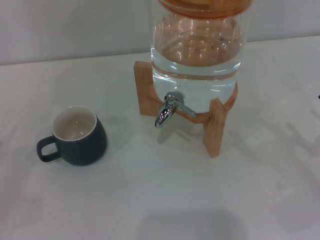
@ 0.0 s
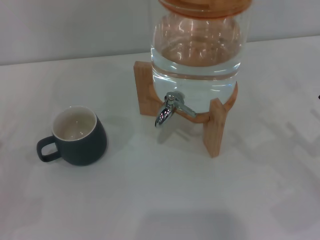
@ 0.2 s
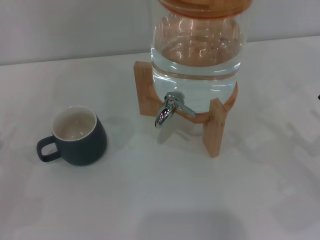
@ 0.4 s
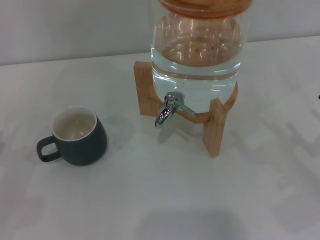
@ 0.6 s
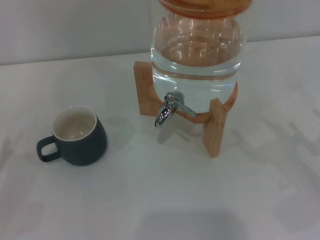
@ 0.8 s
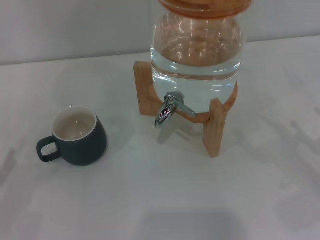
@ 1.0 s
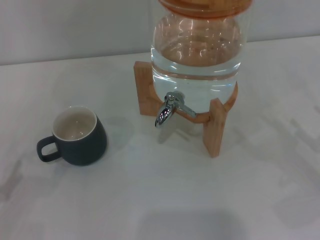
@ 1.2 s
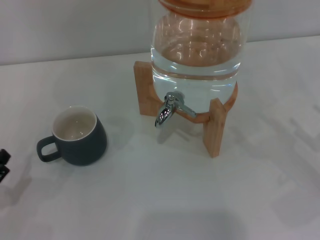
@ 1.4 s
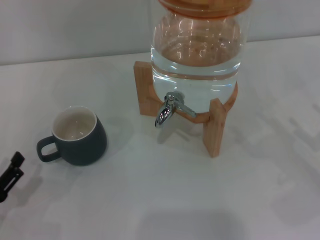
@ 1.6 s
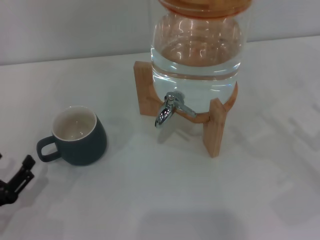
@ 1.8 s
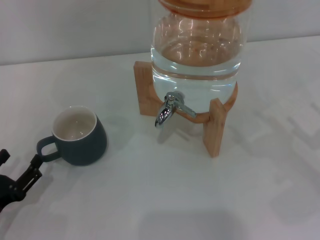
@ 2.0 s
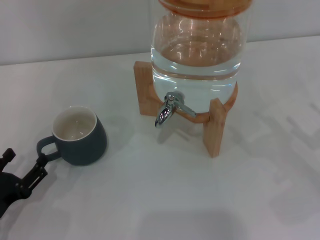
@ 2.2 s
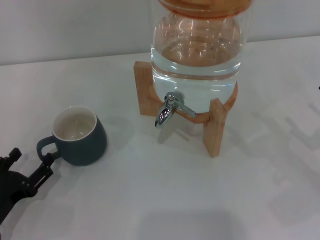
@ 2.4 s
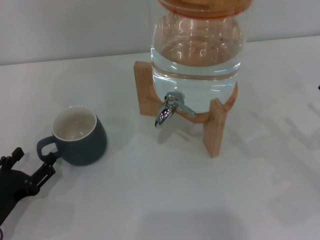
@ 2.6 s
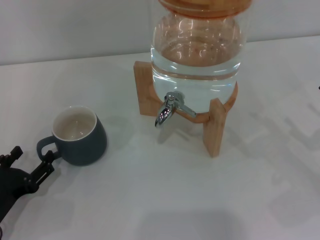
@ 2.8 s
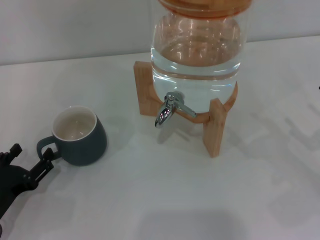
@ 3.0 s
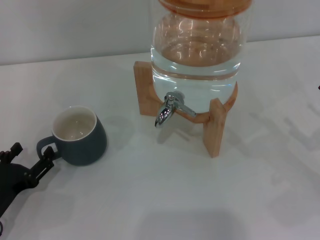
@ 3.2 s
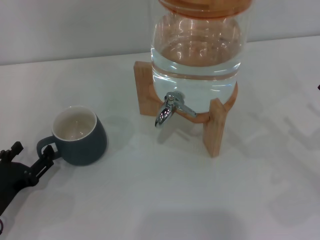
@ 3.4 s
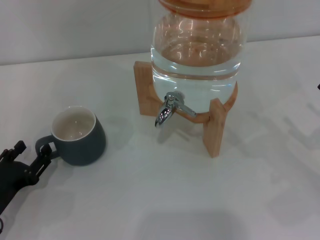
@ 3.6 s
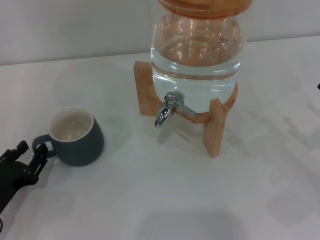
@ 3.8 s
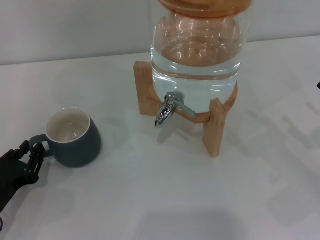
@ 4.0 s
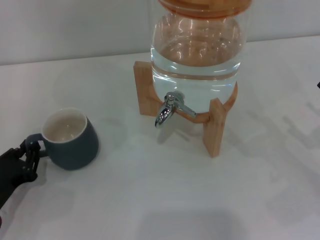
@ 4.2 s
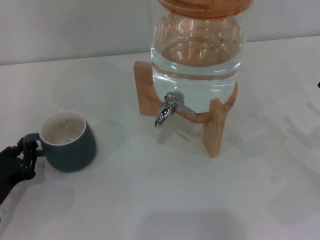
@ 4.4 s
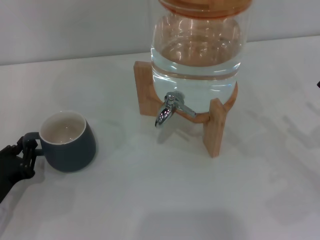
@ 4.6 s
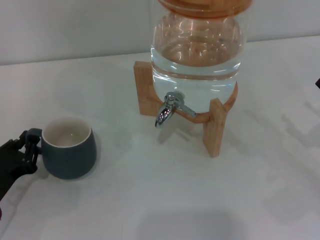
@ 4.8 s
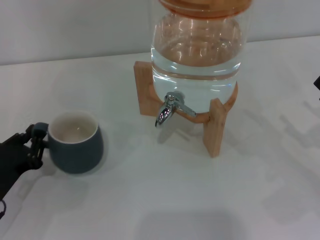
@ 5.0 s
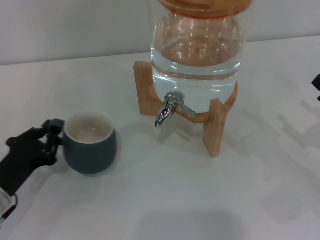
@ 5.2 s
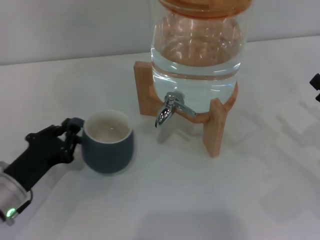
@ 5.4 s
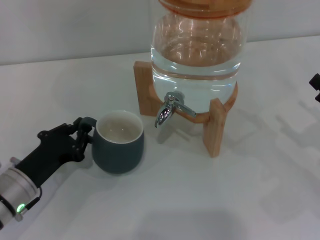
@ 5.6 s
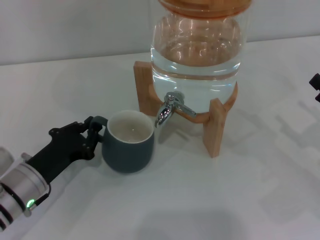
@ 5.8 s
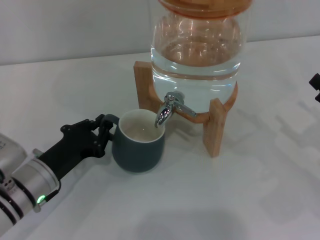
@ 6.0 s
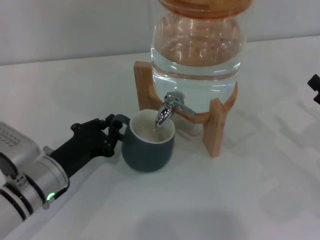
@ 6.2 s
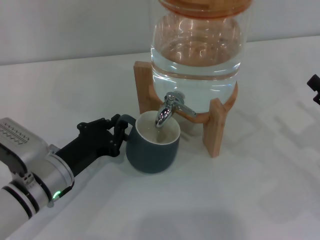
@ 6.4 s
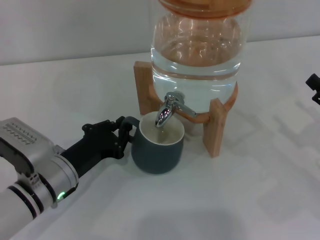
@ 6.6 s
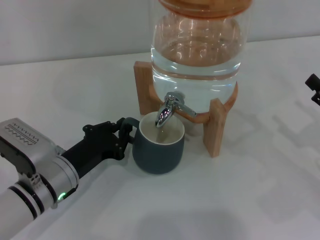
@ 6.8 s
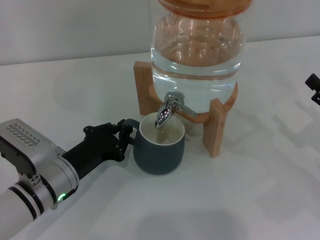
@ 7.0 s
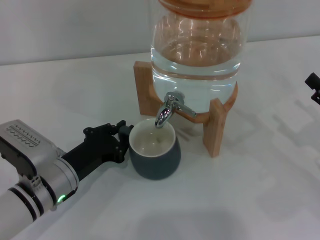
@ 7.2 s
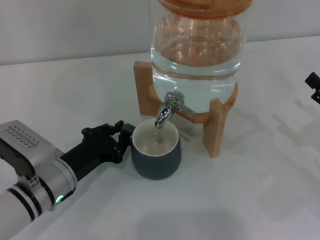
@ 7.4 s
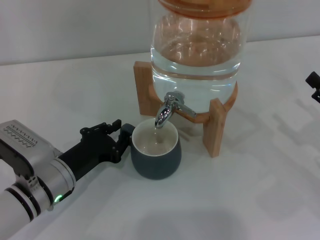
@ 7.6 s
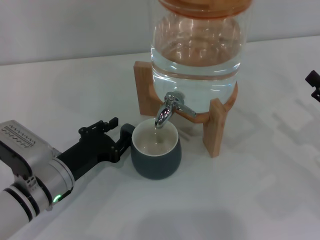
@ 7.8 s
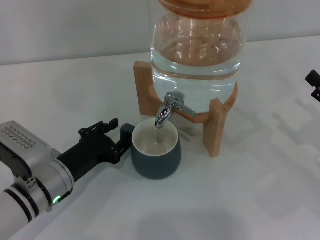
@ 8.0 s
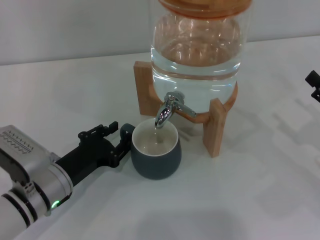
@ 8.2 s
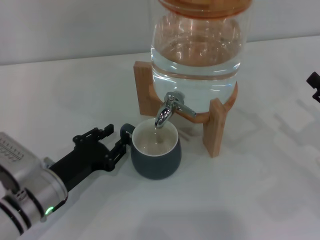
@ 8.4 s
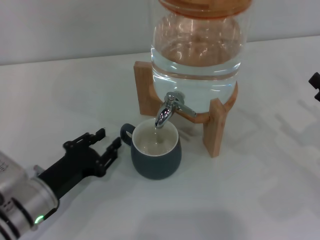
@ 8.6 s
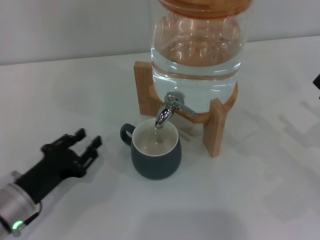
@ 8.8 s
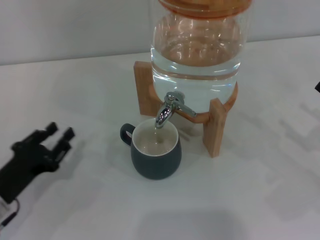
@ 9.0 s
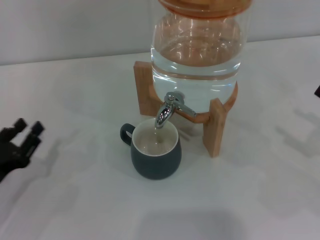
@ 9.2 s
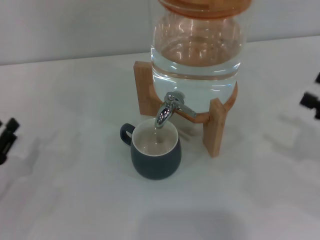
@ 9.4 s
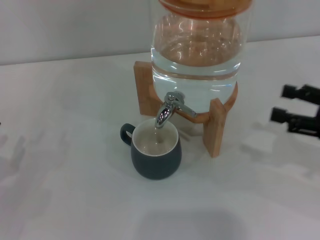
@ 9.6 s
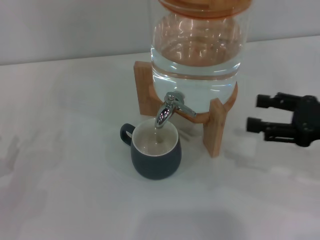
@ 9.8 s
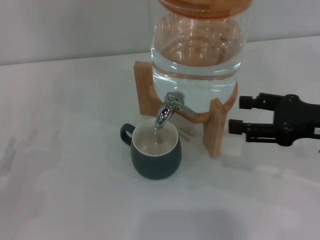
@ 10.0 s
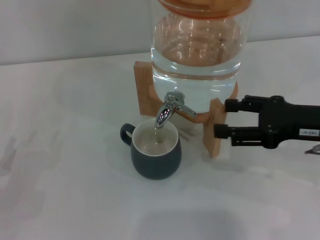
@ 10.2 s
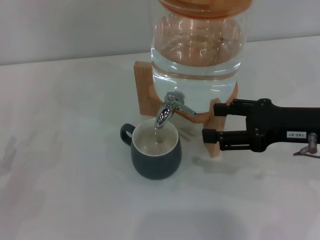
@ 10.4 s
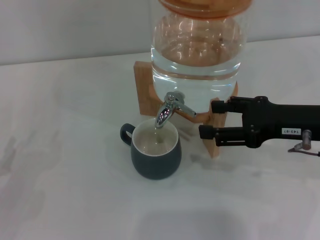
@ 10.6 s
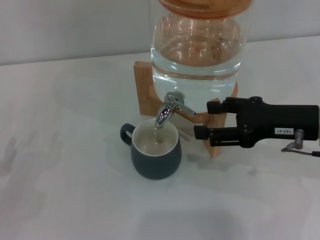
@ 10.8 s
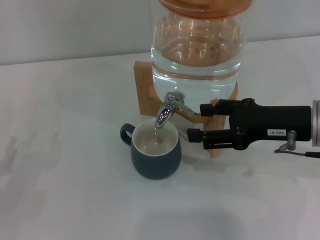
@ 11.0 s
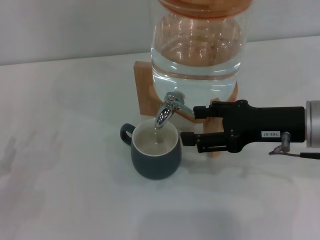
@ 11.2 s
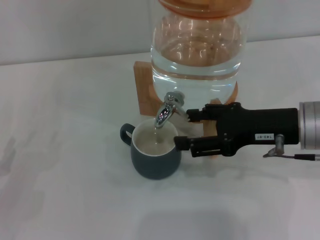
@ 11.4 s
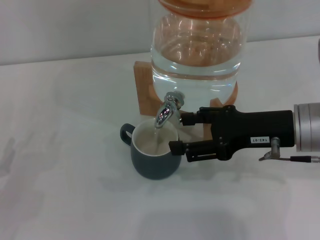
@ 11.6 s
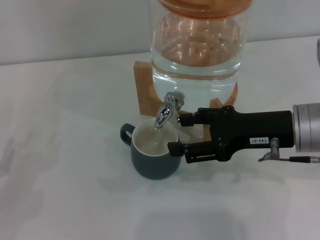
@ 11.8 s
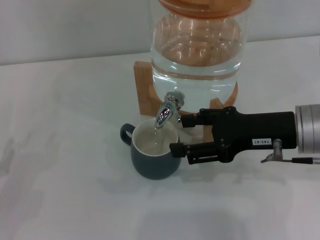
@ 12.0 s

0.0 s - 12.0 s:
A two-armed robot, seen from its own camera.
Task of the whole recording: the left gripper pick up the black cup and place it horizontally under the faucet, the right gripper turn on the faucet to fill the cup, and then turn off the faucet.
Step, 0.0 s - 8.6 s: Move the cup beneath the water dispenser nozzle with the left gripper.
0.0 s - 1.6 s: The left gripper shifts by approximately 5 cm.
1.6 s - 3.0 s: The grippers move only a little.
3.0 s - 4.4 s: The left gripper closes.
4.4 s - 6.0 s: The left gripper moves to the right, approximately 10 cm.
6.0 s - 7.6 s: The grippers stay close to where they were, moving slightly.
7.6 s - 9.0 s: The left gripper shifts about 10 cm to the left, and opens up.
9.0 s - 10.4 s: The right gripper travels to the left and upward by approximately 15 cm. The left gripper moves to the left, approximately 10 cm.
10.4 s - 12.0 s: The grippers stay close to where they were, moving slightly.

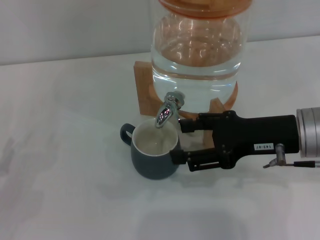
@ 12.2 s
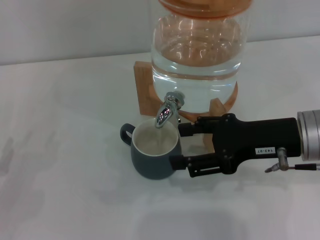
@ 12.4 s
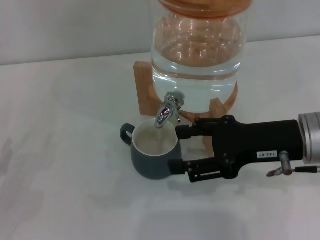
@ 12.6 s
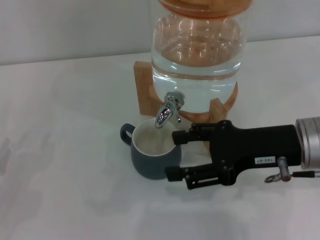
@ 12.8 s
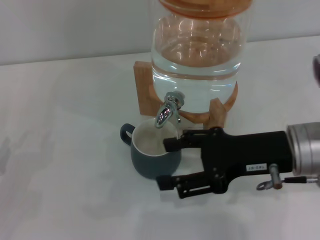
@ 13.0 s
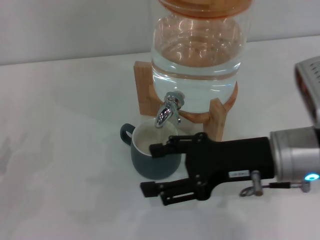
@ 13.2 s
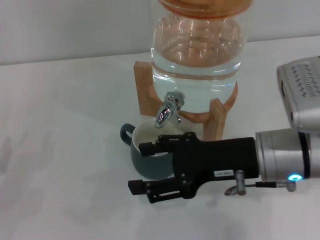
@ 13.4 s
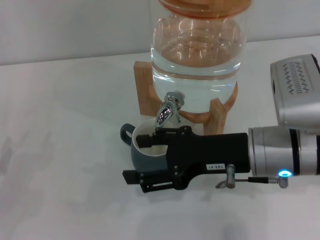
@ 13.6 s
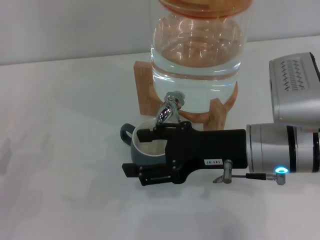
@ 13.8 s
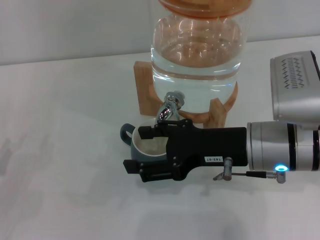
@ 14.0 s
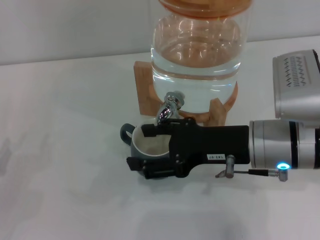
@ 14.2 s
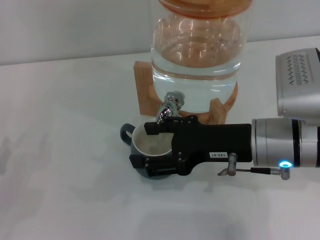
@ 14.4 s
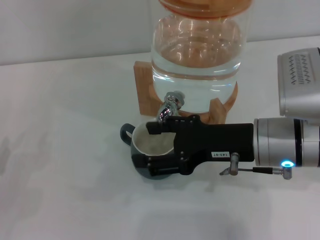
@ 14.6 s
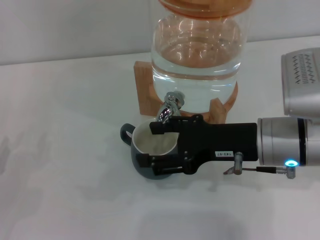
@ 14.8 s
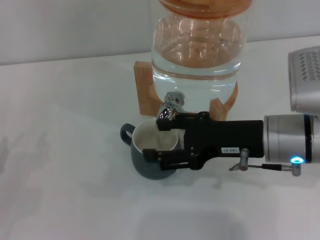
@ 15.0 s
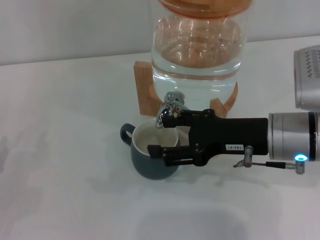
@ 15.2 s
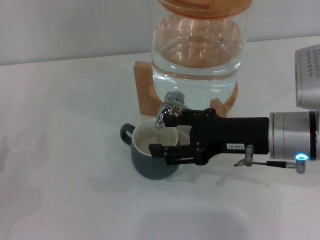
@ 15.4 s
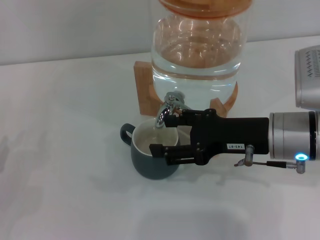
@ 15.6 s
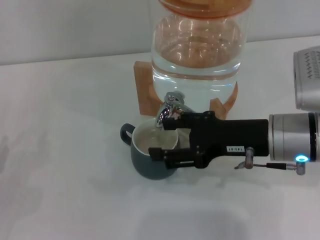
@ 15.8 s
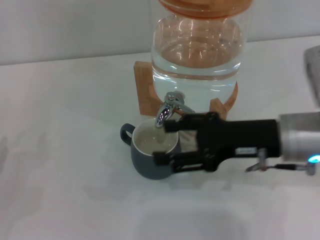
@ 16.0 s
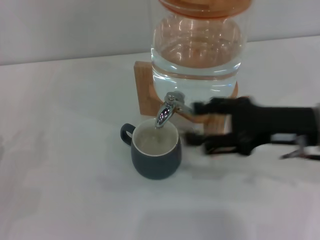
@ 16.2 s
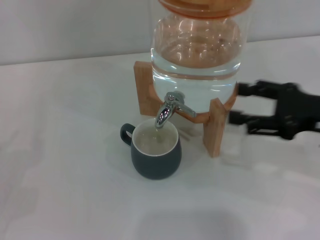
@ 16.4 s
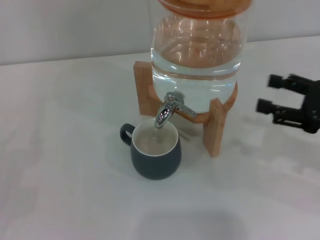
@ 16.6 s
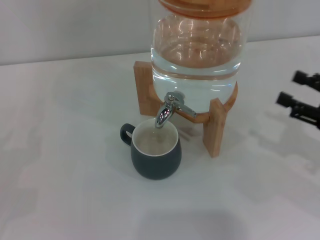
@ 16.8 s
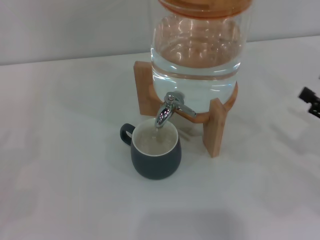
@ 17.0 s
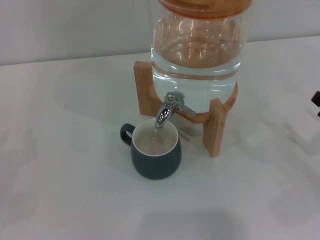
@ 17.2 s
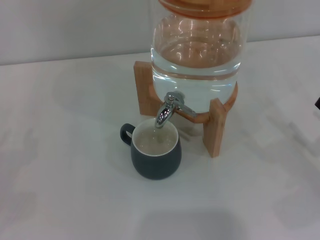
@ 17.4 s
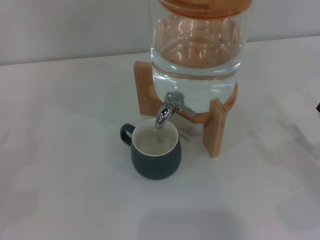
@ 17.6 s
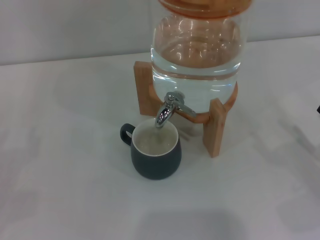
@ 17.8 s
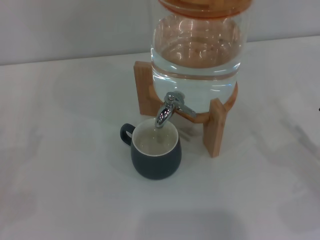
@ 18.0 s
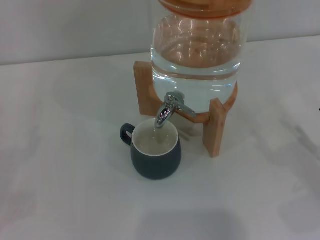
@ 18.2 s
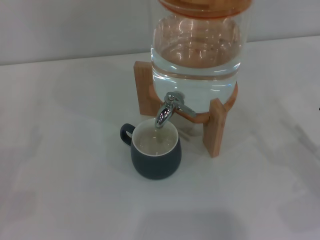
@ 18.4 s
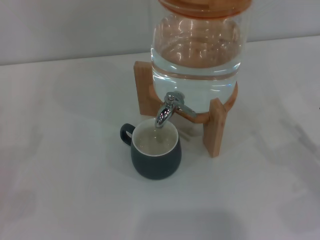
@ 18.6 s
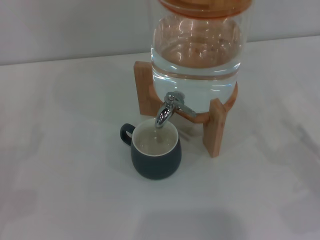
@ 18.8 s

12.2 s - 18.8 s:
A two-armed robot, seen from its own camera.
Task of the whole recording: the left gripper pick up the black cup and place it horizontally under the faucet, the right gripper turn on the faucet to fill the cup, and then turn off the faucet.
Step, 13.8 s - 16.2 s: Close the dispenser valve with the right gripper.
12.2 s - 13.8 s: The right gripper shifts roughly 5 cm to the left.
13.8 s - 15.4 s: The grippers make only small movements.
15.4 s - 17.2 s: The right gripper moves to the right and downward, roughly 20 cm.
